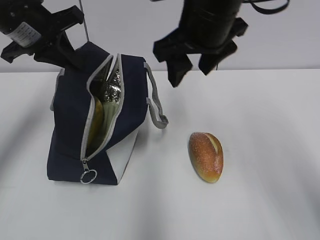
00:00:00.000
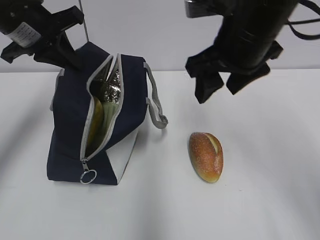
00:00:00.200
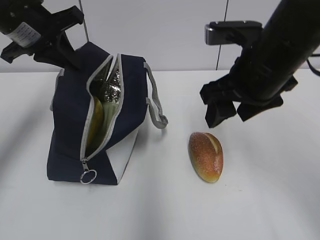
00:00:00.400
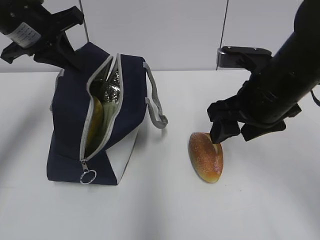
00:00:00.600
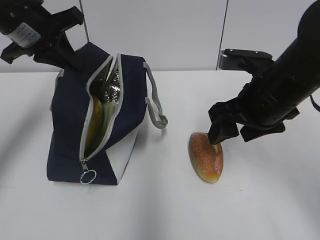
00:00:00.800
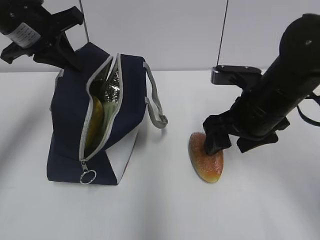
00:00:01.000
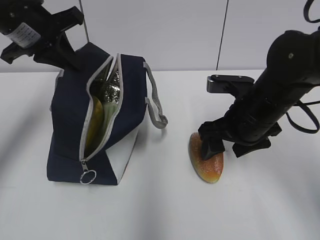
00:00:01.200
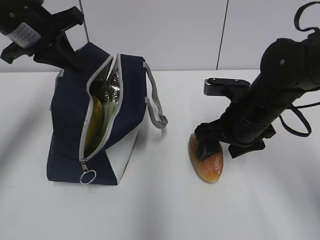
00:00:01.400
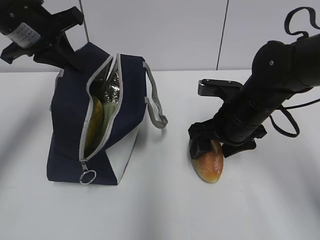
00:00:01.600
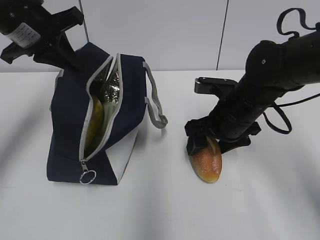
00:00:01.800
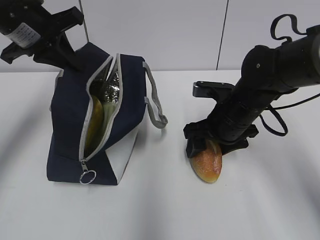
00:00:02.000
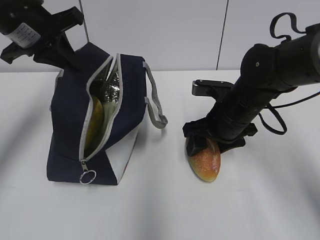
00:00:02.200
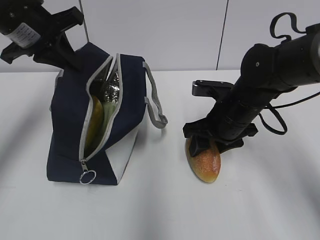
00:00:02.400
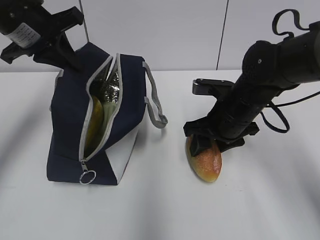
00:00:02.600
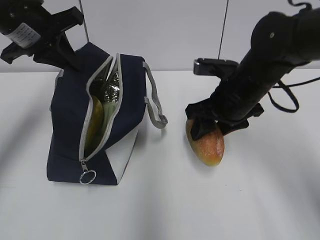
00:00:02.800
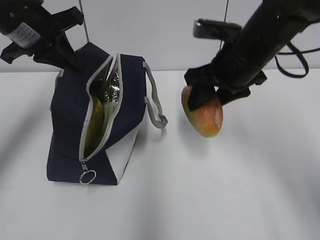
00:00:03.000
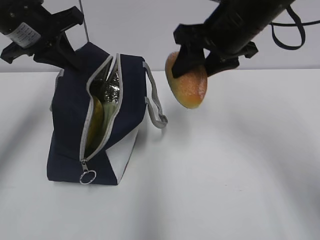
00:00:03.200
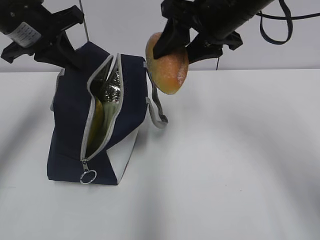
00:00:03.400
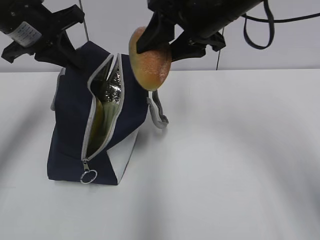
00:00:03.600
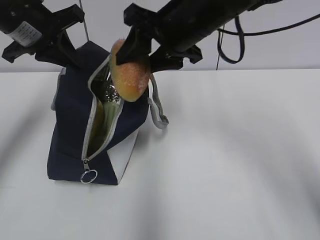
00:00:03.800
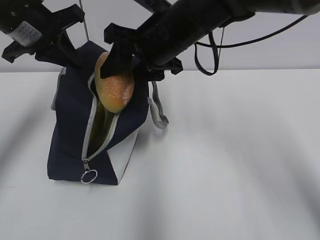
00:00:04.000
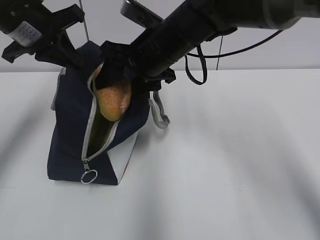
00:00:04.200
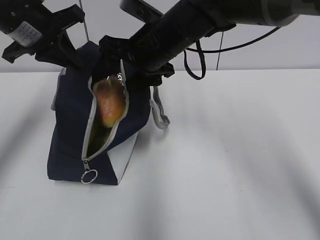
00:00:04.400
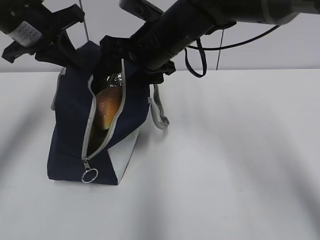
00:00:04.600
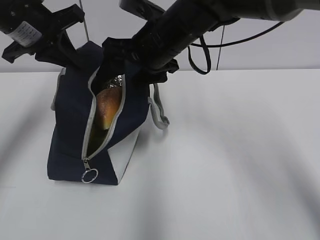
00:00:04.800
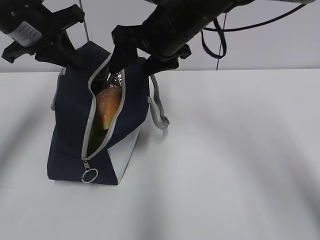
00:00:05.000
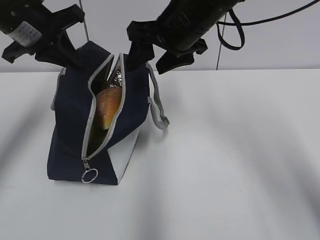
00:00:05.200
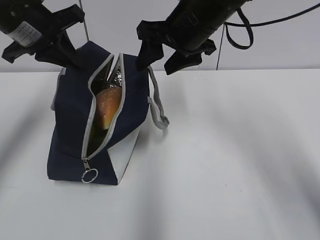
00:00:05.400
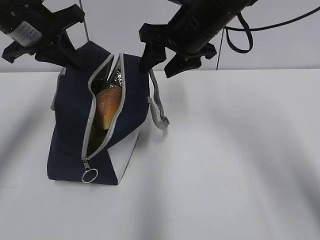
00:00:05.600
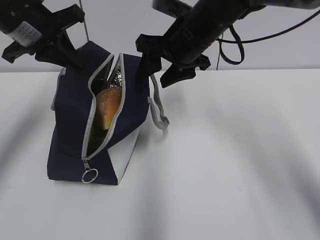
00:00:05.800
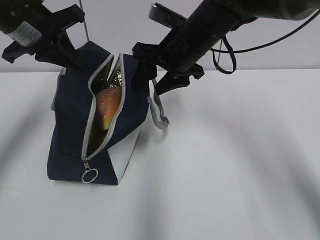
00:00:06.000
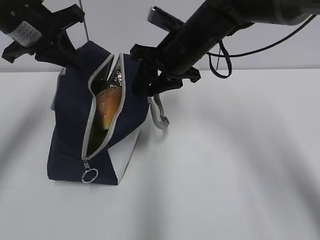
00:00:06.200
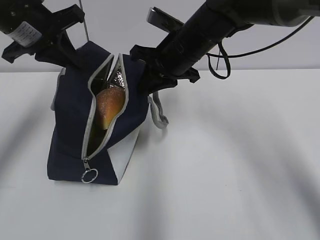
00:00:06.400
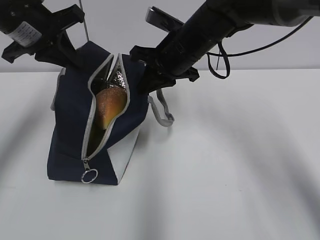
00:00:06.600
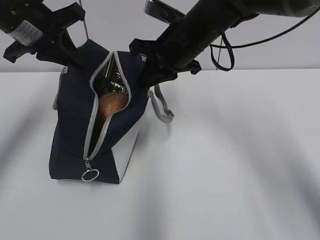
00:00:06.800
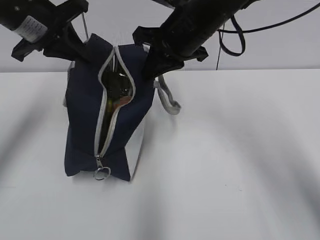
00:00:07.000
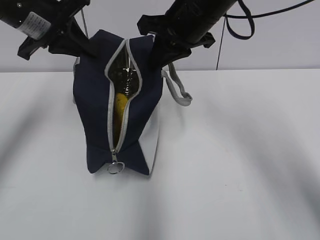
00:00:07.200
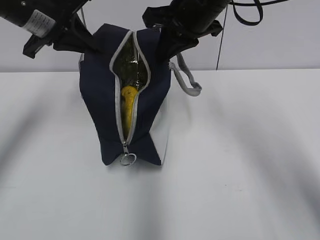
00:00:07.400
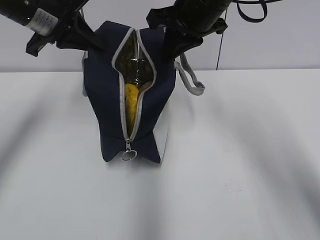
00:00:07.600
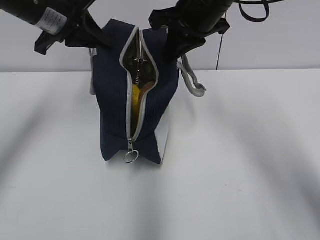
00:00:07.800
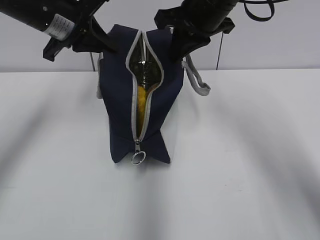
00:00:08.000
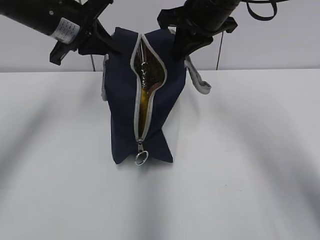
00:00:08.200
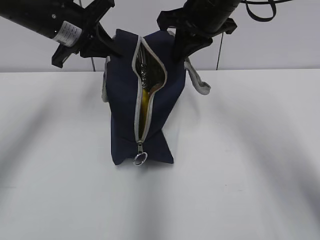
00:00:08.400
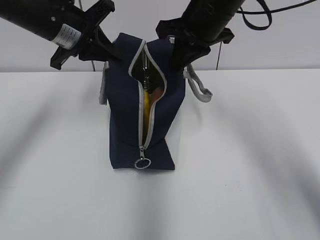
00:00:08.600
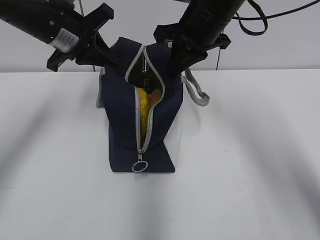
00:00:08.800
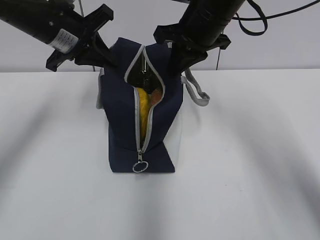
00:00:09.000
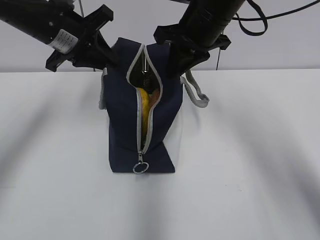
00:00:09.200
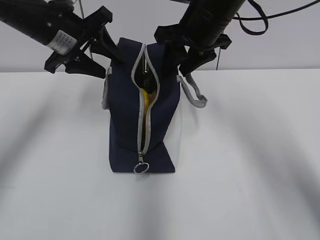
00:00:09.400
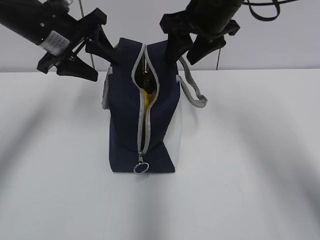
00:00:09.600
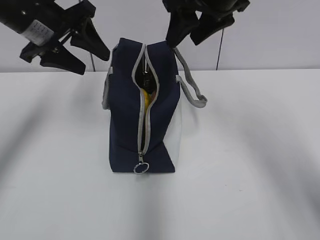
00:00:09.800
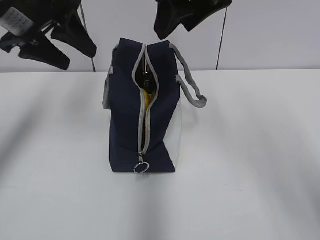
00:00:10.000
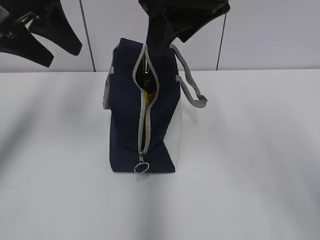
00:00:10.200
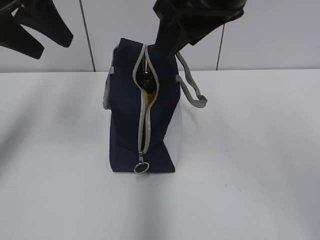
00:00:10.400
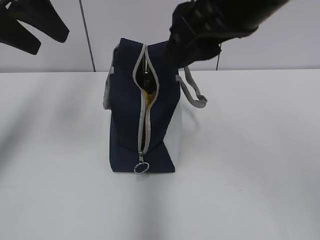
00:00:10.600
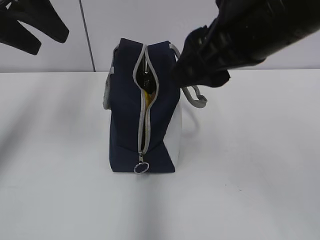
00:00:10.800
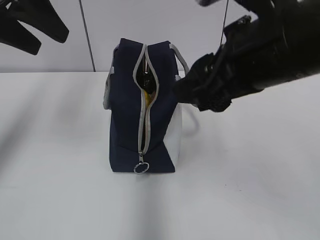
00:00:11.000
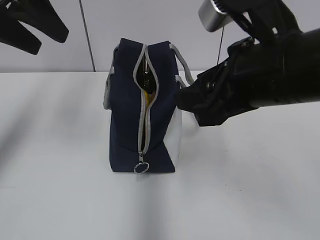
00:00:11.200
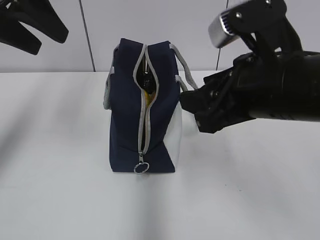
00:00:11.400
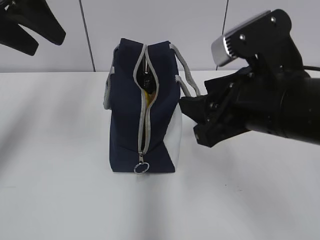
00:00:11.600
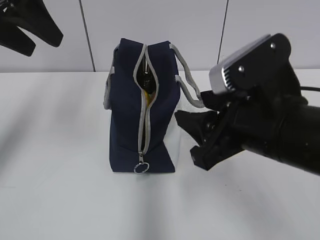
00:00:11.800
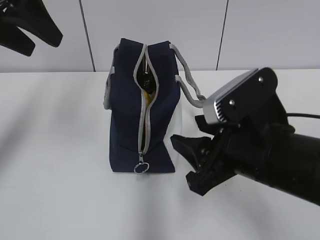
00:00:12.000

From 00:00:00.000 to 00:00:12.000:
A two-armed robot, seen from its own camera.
Step, from 00:00:00.000 to 00:00:02.400: Grab the bread with your right hand.
Step, from 00:00:04.600 to 00:00:06.600: Grab the lunch bag with your right hand.
Step, from 00:00:07.000 to 00:00:09.200: Move the lunch bag to the right.
From 00:00:00.000 to 00:00:01.600: The right gripper goes roughly 15 cm downward.
From 00:00:01.600 to 00:00:03.000: The right gripper travels upward by approximately 10 cm.
From 00:00:03.000 to 00:00:04.400: The right gripper is displaced to the left by roughly 10 cm.
From 00:00:06.000 to 00:00:07.600: The right gripper goes about 5 cm upward, and closes.
From 00:00:07.600 to 00:00:09.000: There are only small adjustments of the grippers.
From 00:00:09.000 to 00:00:10.400: The right gripper moves backward and upward, some 15 cm, and opens up, while the left gripper heads upward and backward, covering about 10 cm, and opens its fingers.
From 00:00:10.400 to 00:00:12.000: The right gripper goes about 20 cm downward and backward.

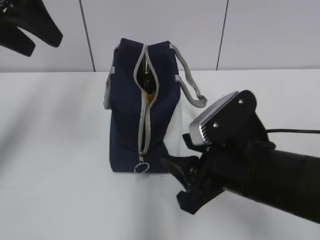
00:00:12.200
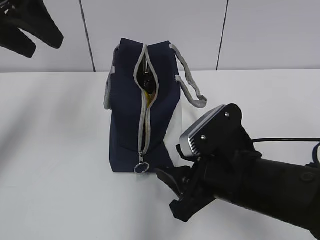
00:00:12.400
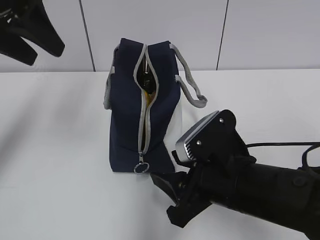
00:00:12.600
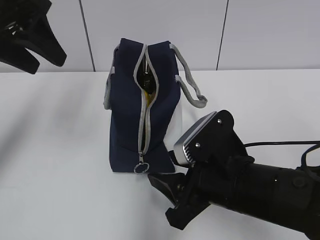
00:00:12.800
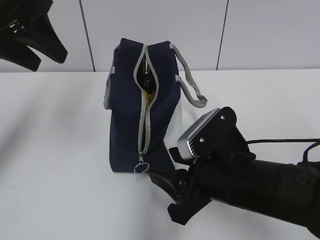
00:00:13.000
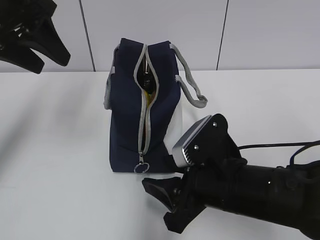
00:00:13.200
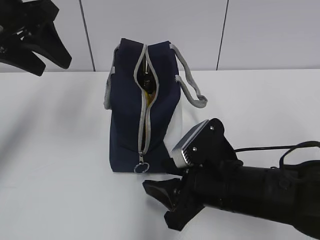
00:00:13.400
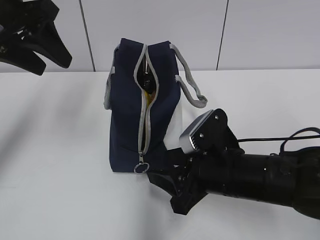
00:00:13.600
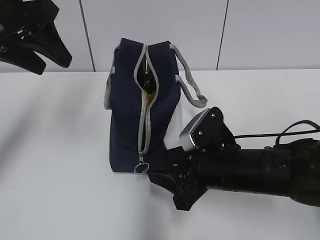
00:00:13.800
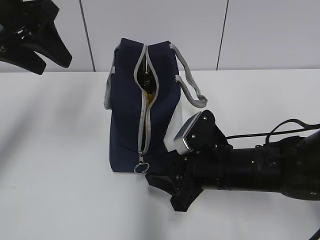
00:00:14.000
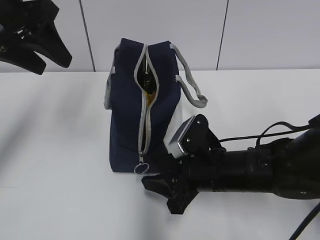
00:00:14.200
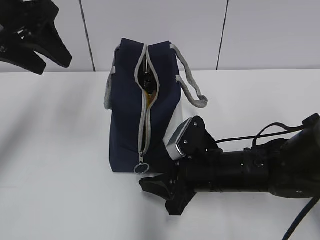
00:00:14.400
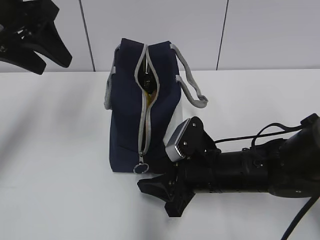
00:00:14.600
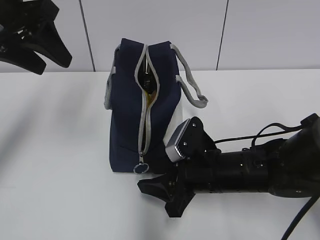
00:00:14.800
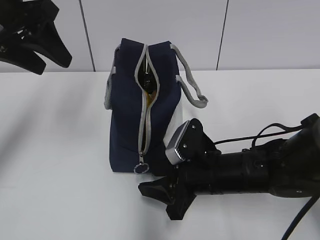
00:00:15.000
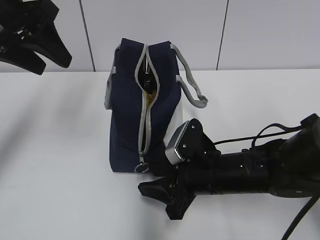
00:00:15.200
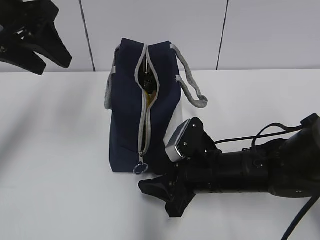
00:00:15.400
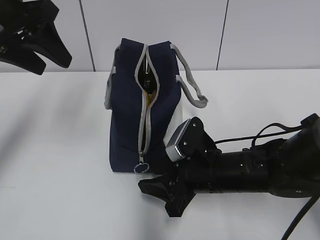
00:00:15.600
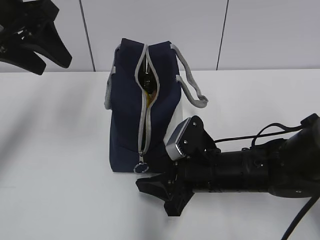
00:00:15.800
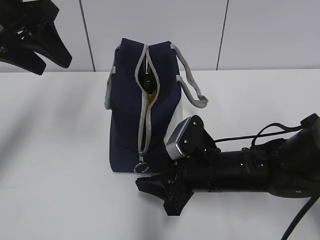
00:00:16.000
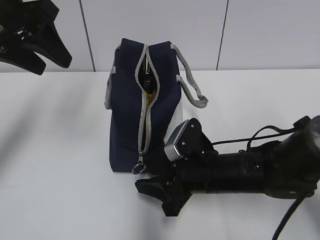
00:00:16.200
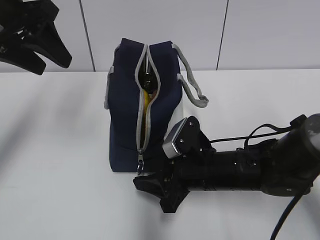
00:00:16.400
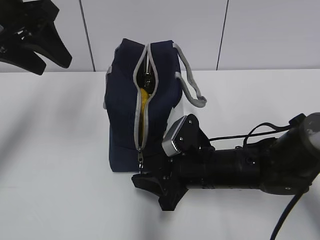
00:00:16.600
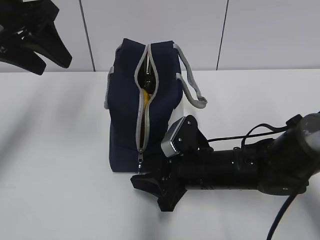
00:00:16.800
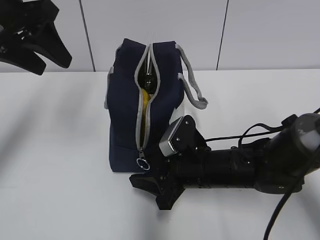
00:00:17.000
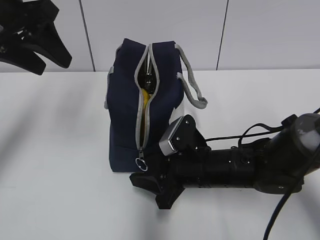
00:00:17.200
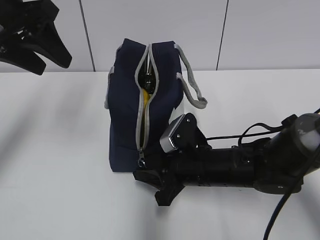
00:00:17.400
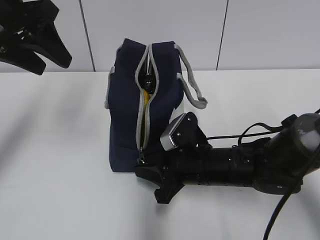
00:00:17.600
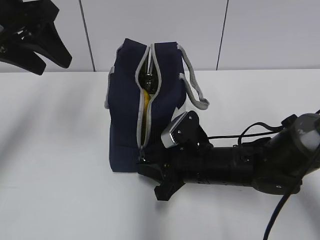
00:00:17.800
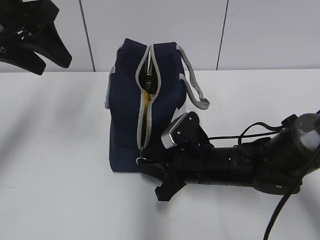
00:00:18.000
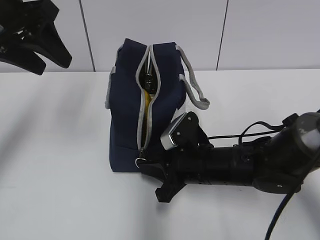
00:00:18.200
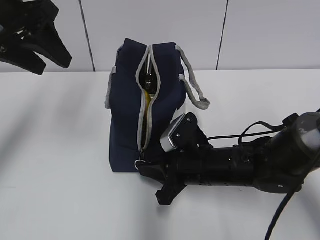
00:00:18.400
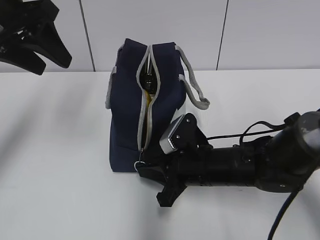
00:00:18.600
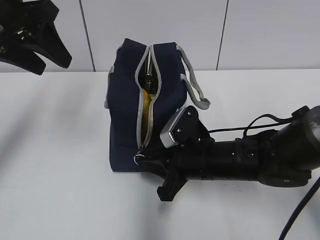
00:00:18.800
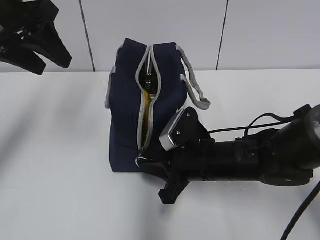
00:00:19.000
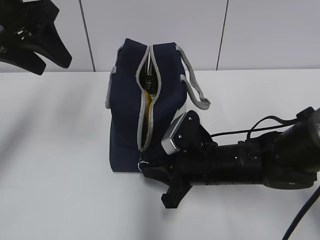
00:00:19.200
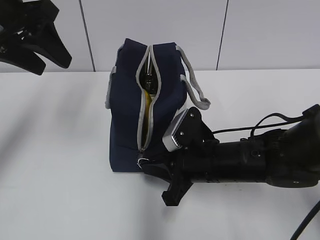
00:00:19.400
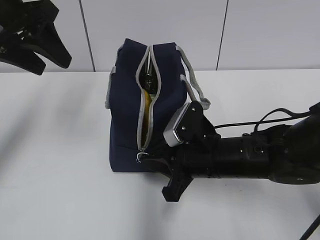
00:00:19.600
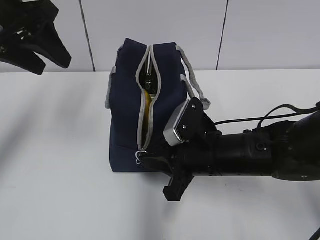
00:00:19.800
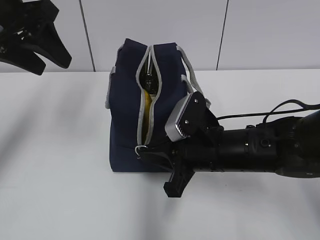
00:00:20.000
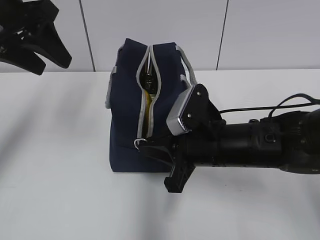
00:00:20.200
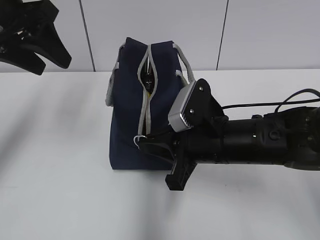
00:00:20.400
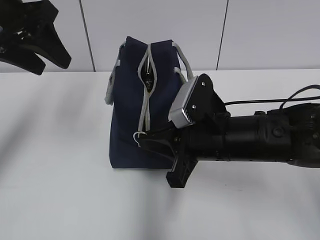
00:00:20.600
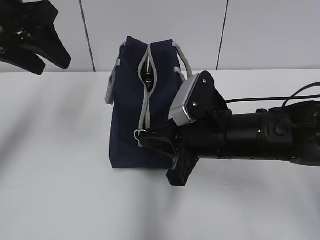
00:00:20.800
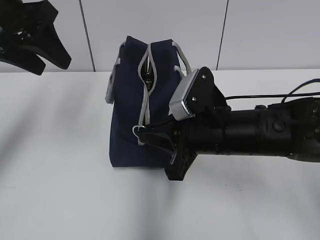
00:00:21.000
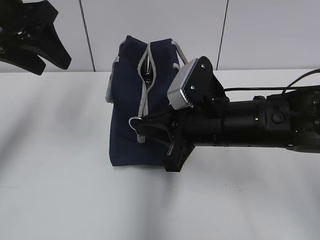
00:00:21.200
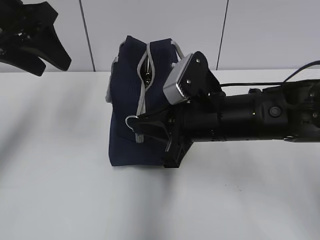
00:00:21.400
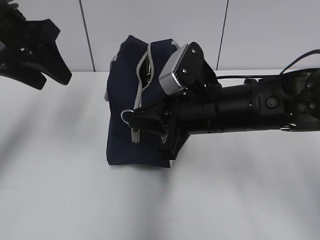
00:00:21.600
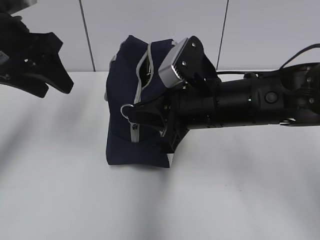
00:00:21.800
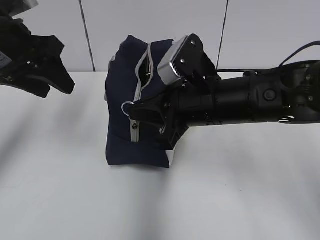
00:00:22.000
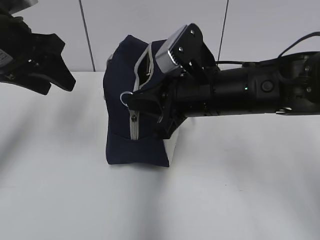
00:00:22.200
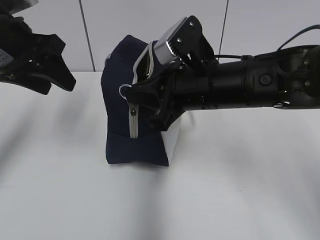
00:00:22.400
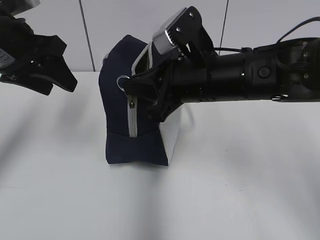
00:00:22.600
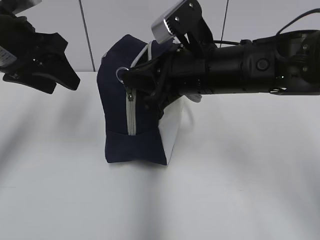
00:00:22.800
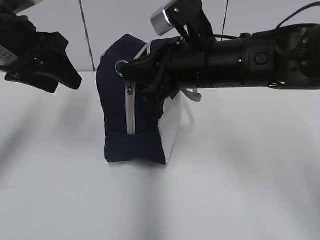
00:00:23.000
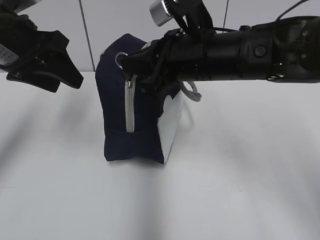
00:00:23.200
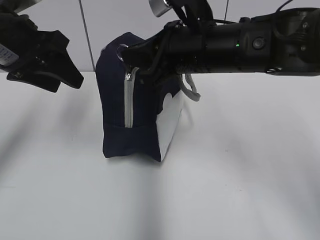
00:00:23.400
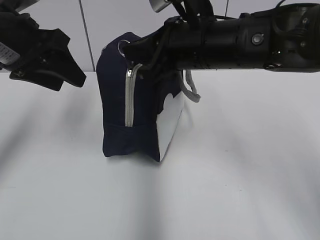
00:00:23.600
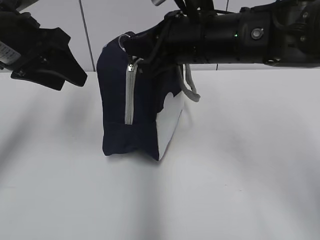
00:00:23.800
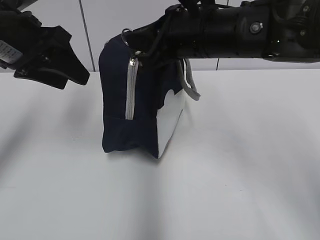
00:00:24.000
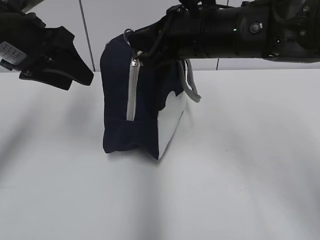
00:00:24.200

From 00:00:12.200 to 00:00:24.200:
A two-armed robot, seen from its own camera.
From 00:00:12.200 to 00:00:13.800: The right gripper heads downward and forward, covering roughly 10 cm.
From 00:00:13.800 to 00:00:15.200: The grippers stay close to where they were, moving slightly.
From 00:00:15.200 to 00:00:16.600: The two grippers keep their place.
From 00:00:16.600 to 00:00:18.200: The right gripper closes.
From 00:00:18.200 to 00:00:19.800: The grippers make only small movements.
From 00:00:19.800 to 00:00:21.200: The right gripper travels upward by about 5 cm.
From 00:00:21.200 to 00:00:22.600: The right gripper changes place by about 5 cm.
From 00:00:22.600 to 00:00:24.200: The right gripper moves some 5 cm.
